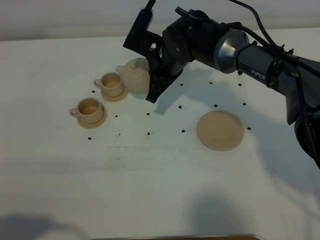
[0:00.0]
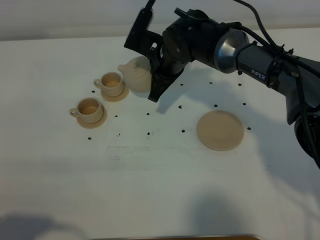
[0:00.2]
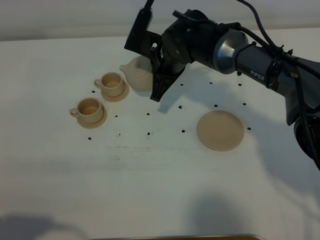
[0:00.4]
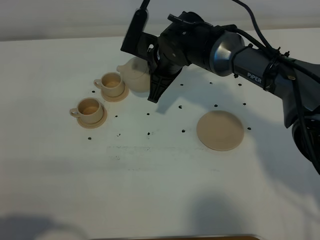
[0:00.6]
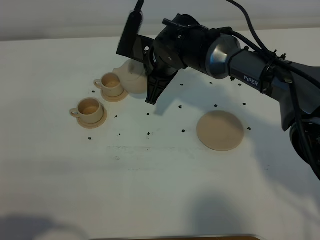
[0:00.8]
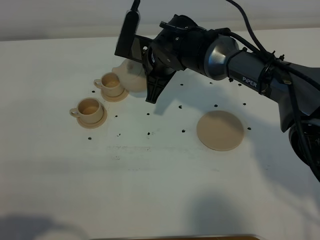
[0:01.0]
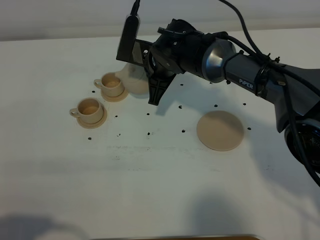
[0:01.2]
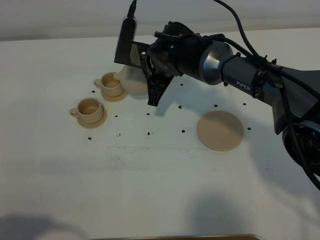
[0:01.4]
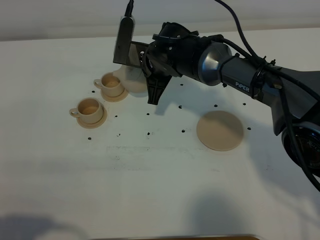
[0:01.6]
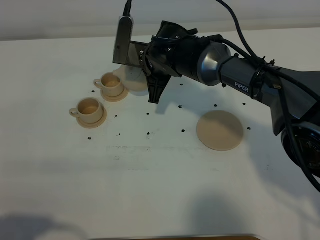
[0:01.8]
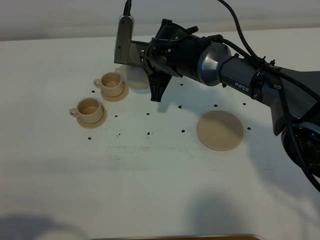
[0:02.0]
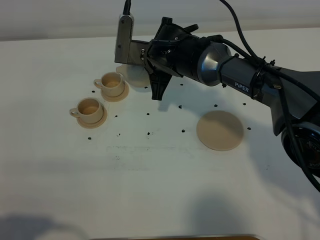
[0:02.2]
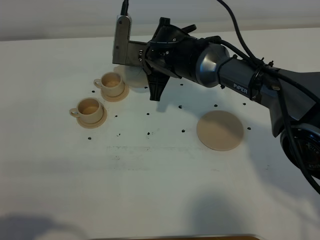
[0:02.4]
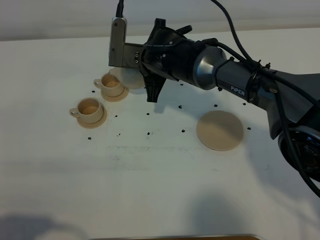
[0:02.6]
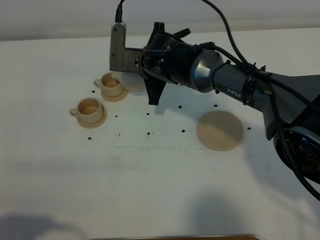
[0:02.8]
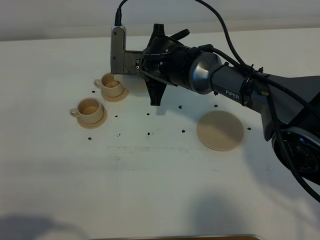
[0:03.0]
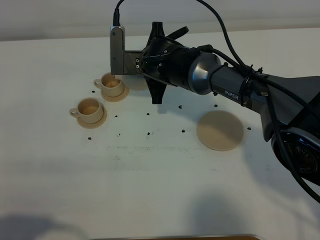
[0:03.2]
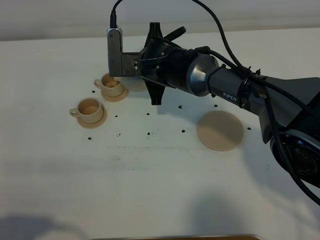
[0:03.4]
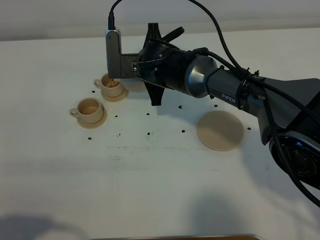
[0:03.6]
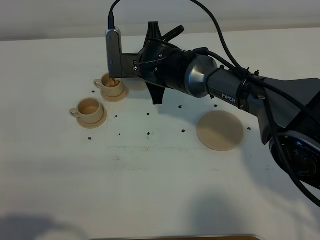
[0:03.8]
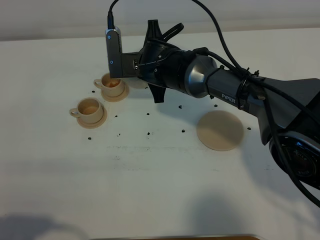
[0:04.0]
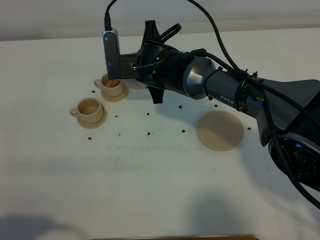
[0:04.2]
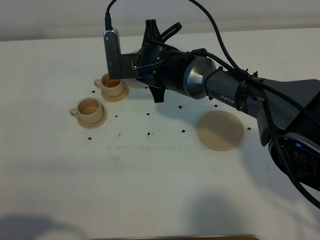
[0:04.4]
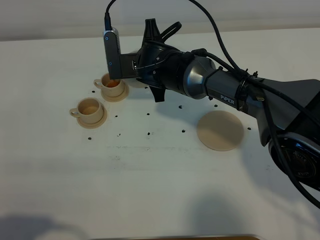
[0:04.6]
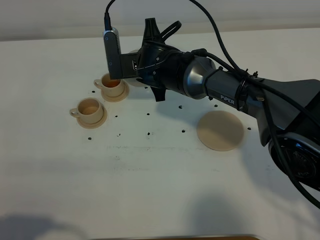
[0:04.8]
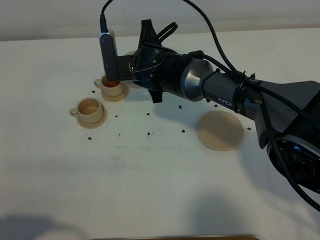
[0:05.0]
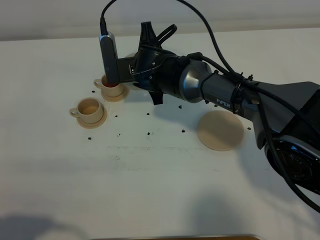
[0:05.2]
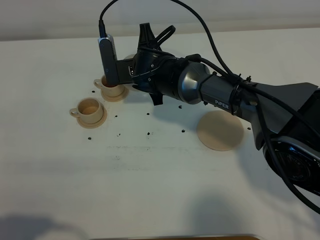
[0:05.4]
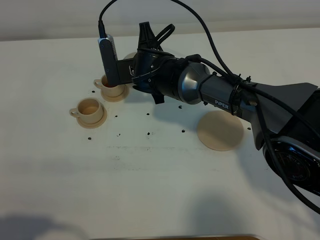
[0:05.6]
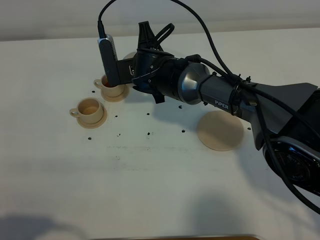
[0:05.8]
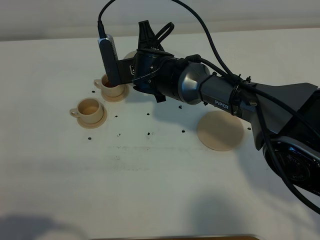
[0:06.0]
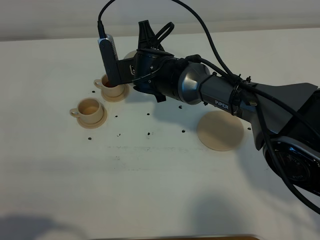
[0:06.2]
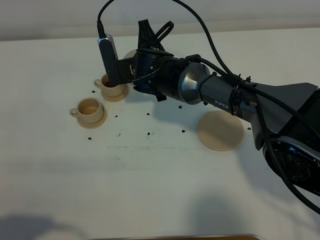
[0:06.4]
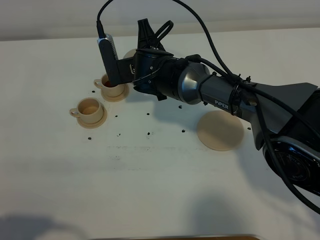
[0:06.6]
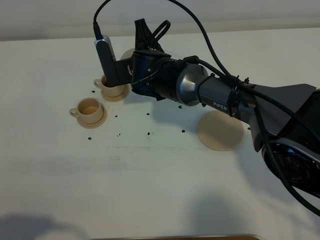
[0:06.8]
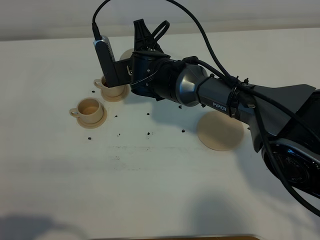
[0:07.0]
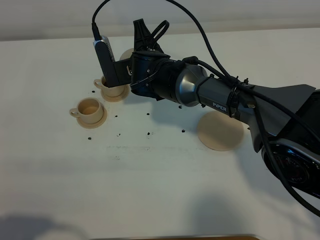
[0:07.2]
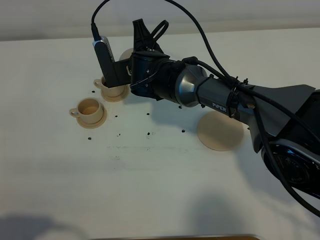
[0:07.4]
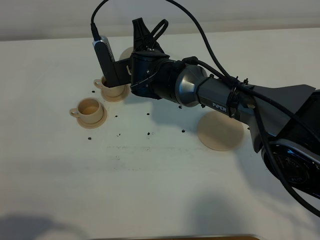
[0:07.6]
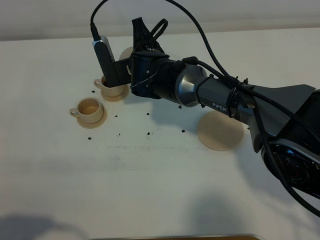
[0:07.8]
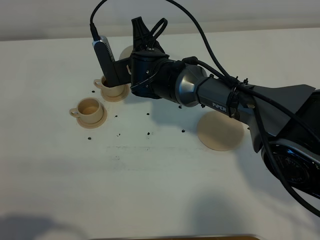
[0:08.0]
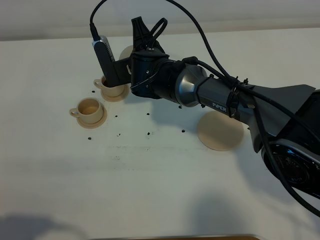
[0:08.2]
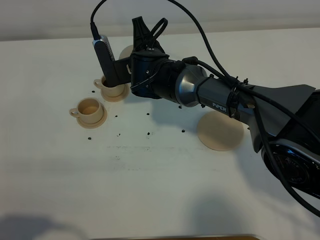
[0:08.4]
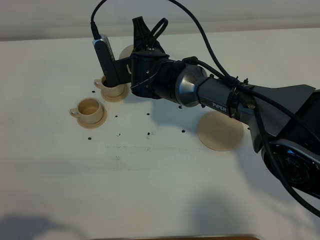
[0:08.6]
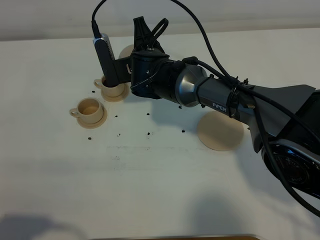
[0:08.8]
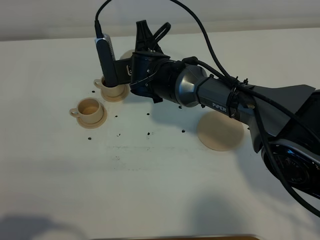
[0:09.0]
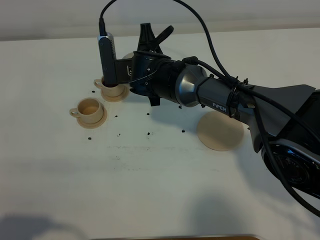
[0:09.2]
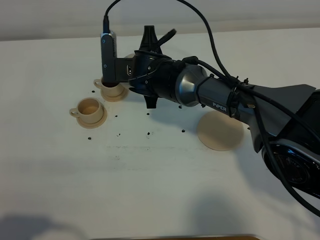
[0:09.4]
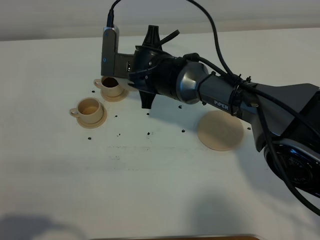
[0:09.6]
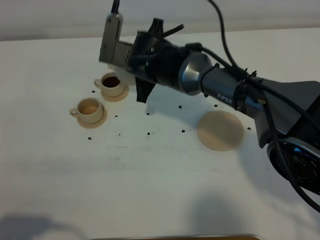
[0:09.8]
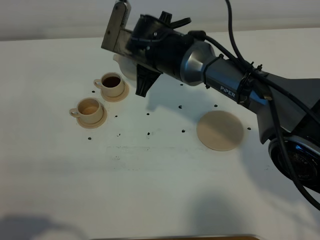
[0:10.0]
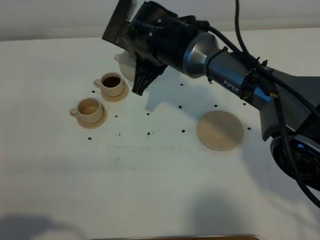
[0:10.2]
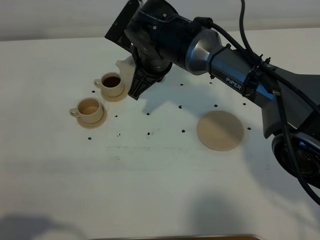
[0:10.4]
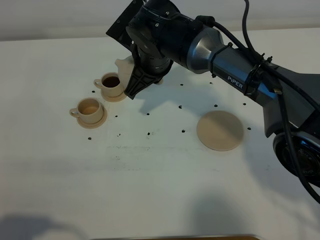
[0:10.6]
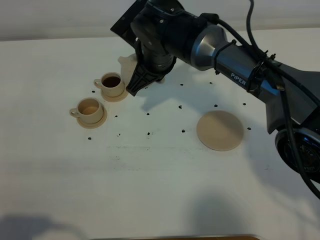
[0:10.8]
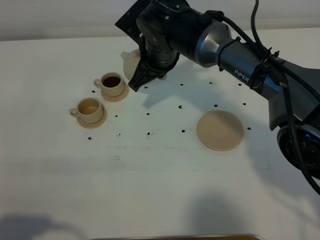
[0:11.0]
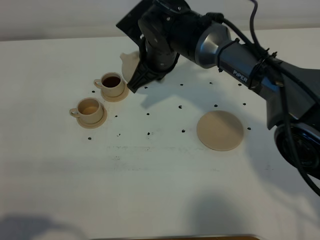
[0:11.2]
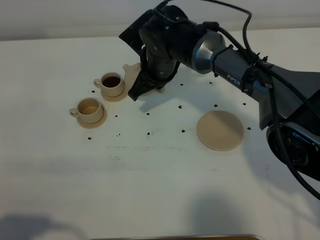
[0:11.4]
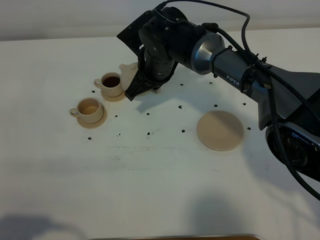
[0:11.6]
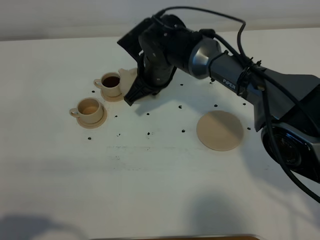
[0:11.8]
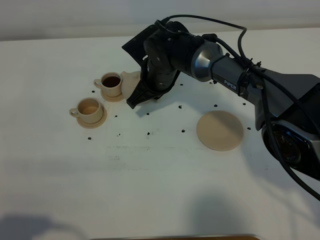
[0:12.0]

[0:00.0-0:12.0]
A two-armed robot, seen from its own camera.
Task of the whole recording: grasp the brown teapot and pour the tea into the two brown teacups one by one, put the brown teapot back in its original place.
0:00.0 to 0:01.6: The grippers move only a little.
0:01.6 to 0:03.0: The grippers make only small movements.
0:03.0 to 0:06.0: The grippers make only small movements.
0:06.0 to 0:09.0: There are only small adjustments of the grippers.
0:09.0 to 0:10.4: The right gripper changes place by some 5 cm.
0:10.4 to 0:12.0: The right gripper shifts approximately 5 cm downward.

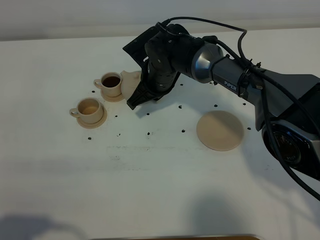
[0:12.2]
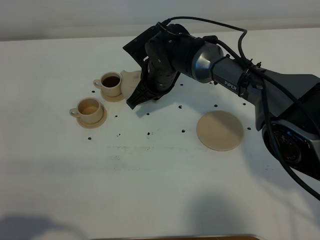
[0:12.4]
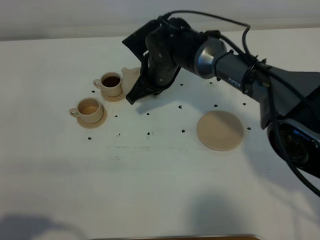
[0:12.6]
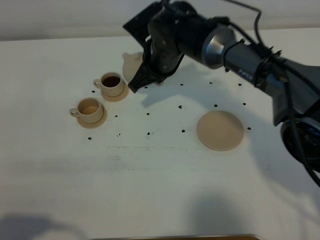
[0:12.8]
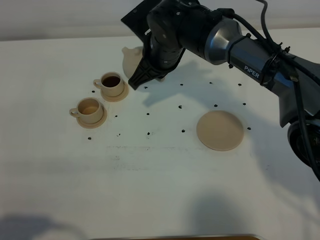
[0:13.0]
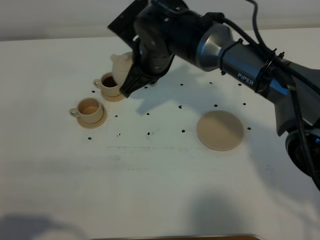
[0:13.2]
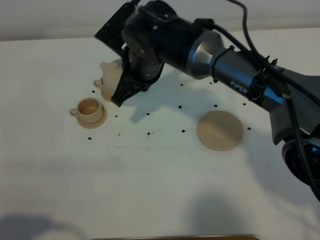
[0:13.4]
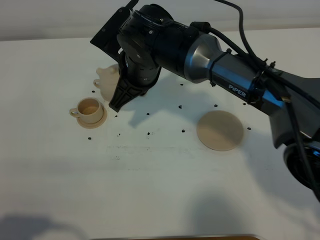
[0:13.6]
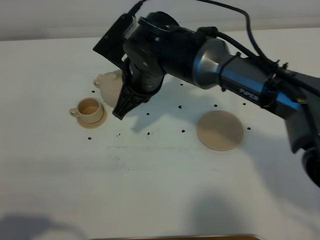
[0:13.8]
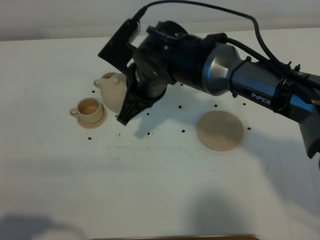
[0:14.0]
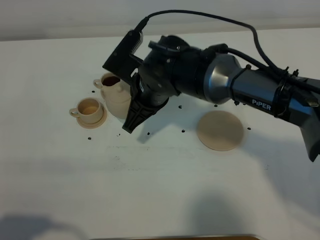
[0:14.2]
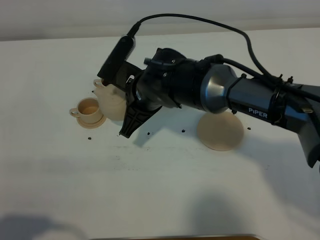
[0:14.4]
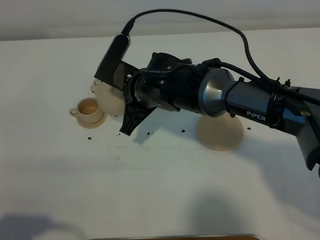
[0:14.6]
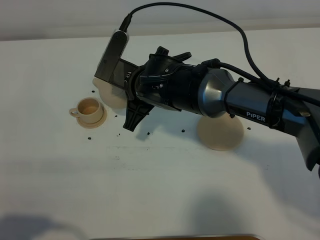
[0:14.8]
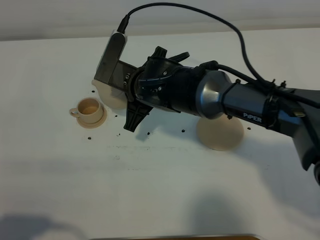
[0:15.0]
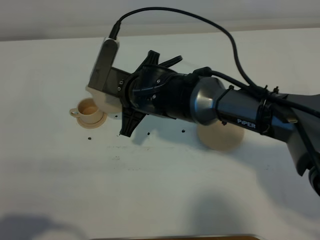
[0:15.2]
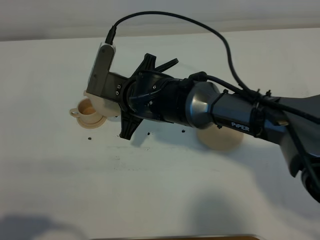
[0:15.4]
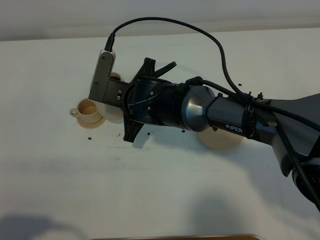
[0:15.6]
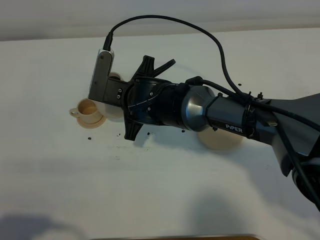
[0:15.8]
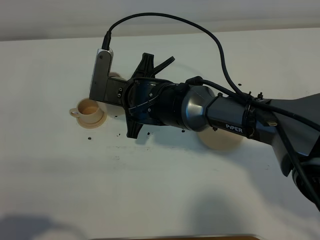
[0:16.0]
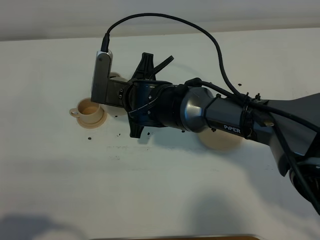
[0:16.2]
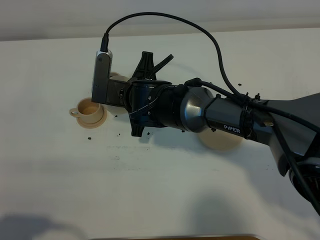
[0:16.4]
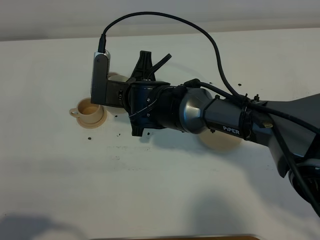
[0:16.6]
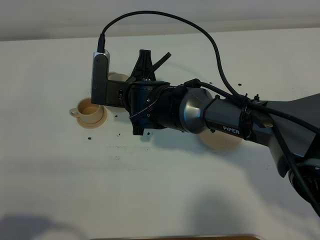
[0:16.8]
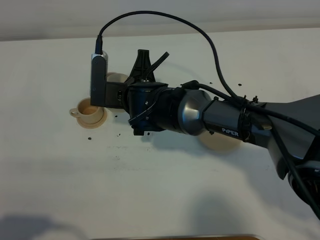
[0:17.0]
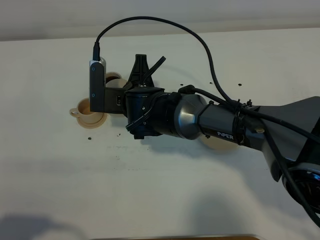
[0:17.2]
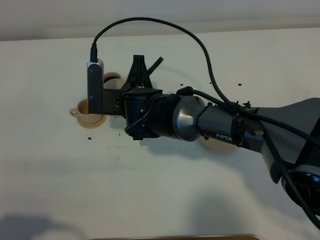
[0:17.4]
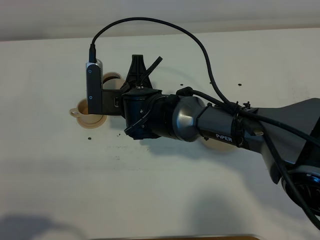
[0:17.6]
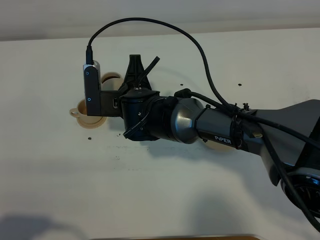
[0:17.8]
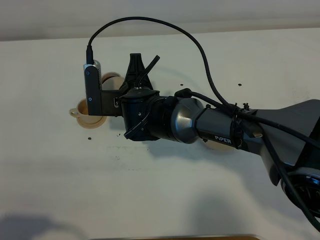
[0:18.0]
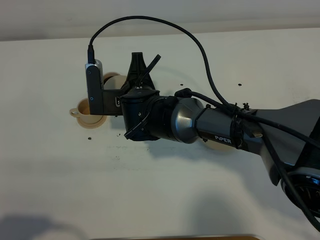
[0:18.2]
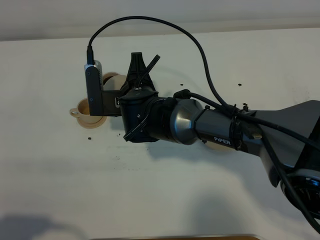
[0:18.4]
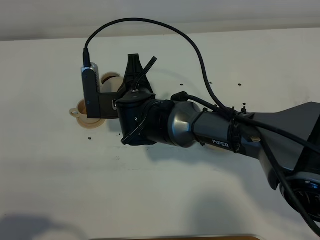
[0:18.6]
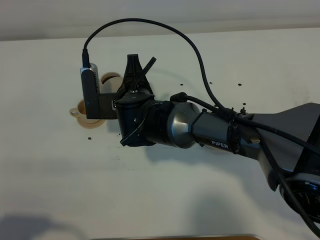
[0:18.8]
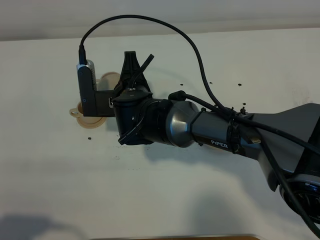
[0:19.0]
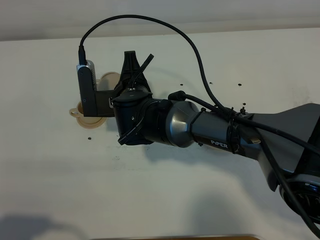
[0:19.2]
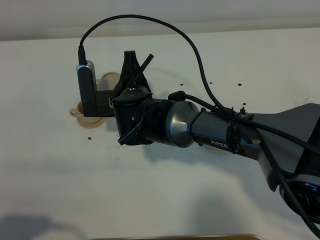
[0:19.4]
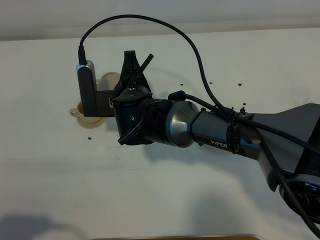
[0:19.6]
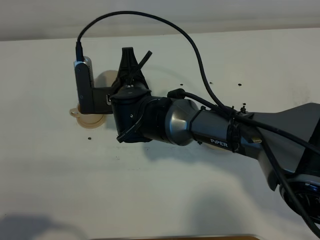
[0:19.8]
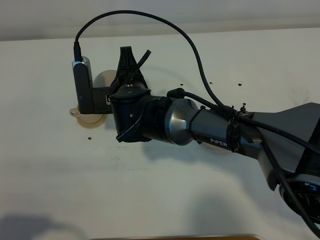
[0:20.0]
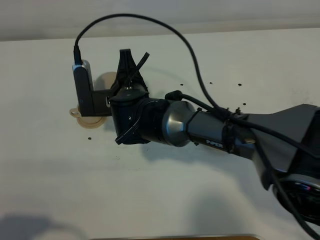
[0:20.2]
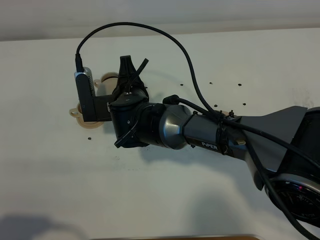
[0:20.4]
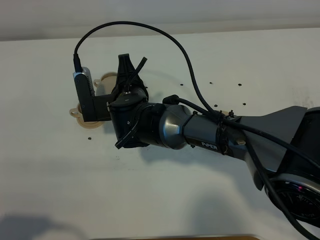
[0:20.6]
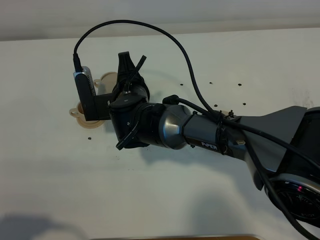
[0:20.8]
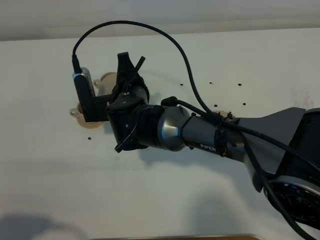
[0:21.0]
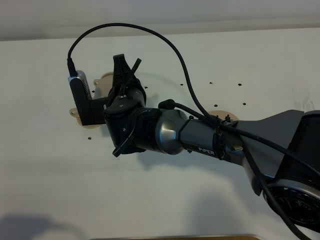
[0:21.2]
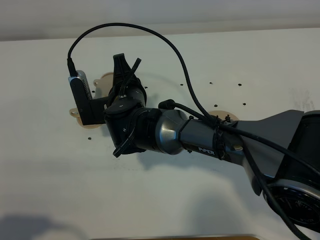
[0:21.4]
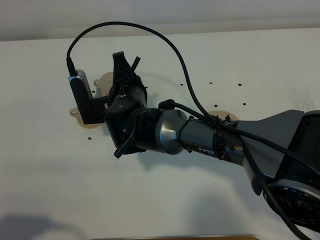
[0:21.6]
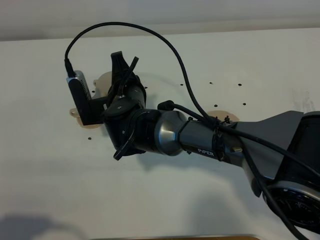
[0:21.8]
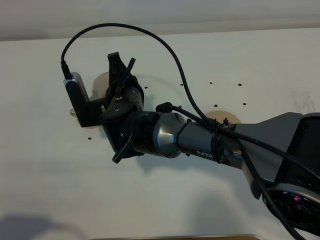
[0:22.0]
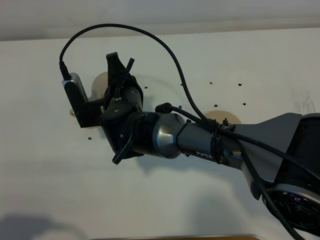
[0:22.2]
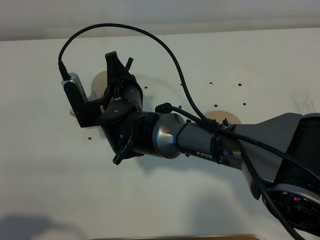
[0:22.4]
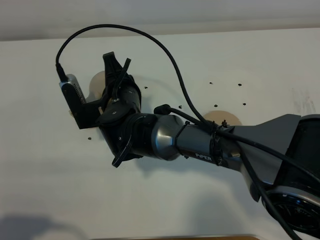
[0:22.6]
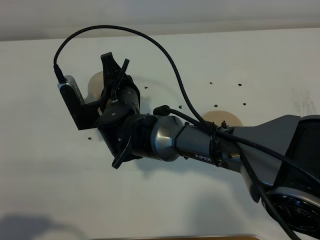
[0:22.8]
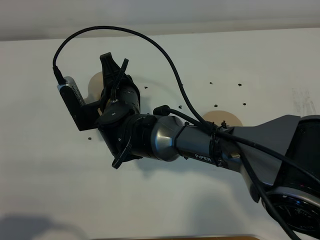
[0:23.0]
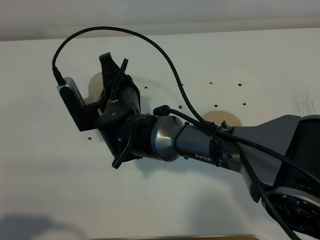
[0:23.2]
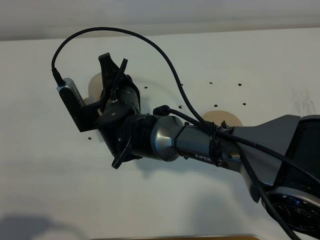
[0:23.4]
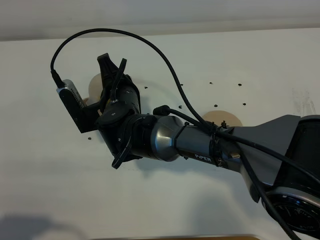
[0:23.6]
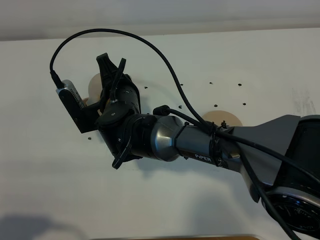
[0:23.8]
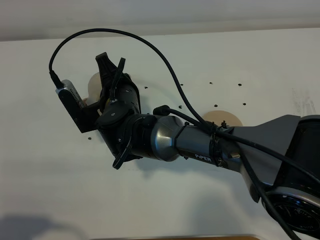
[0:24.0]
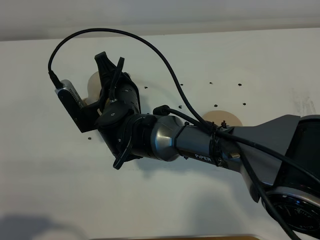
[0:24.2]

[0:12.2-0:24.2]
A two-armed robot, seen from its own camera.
Task of the whole recording: grasp the brown teapot and pour the tea into the two brown teacups one by one, put the brown teapot back in its original place.
0:12.2 to 0:13.8: The right gripper heads upward and backward, covering approximately 10 cm.
0:15.2 to 0:16.6: The grippers stay close to where they were, moving slightly.
0:16.6 to 0:19.8: The grippers move only a little.
0:19.8 to 0:22.6: The grippers stay close to where they were, moving slightly.
0:22.6 to 0:24.2: There are only small adjustments of the grippers.
